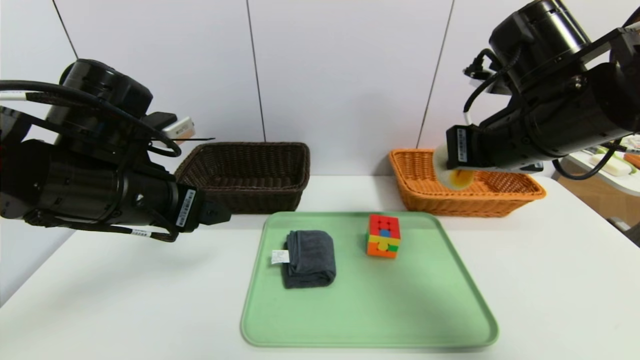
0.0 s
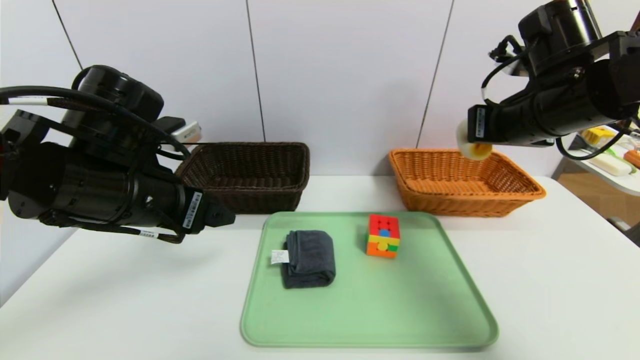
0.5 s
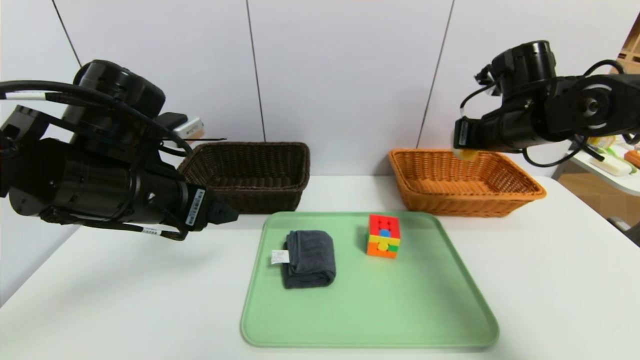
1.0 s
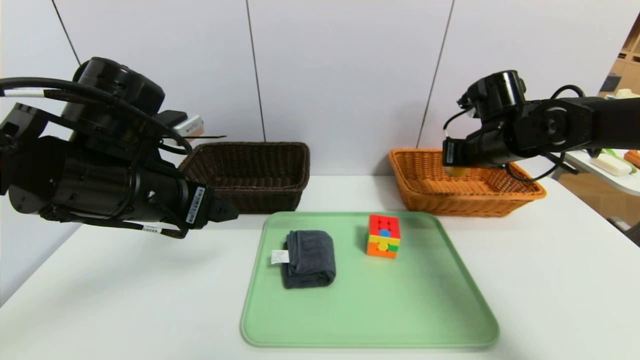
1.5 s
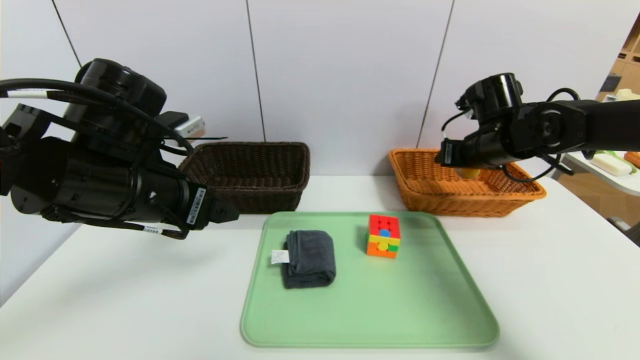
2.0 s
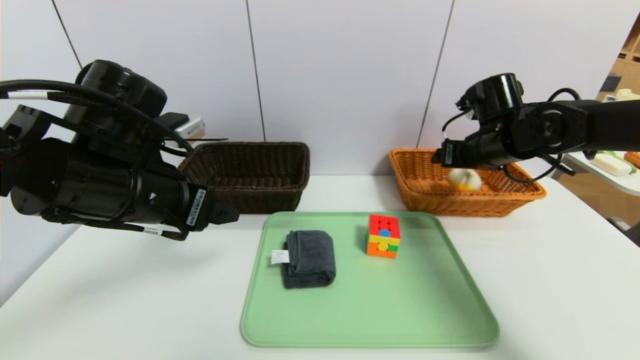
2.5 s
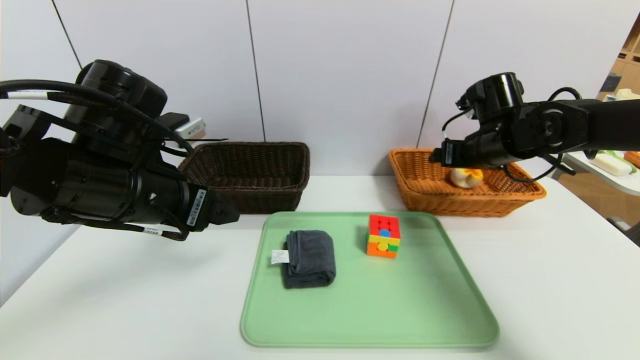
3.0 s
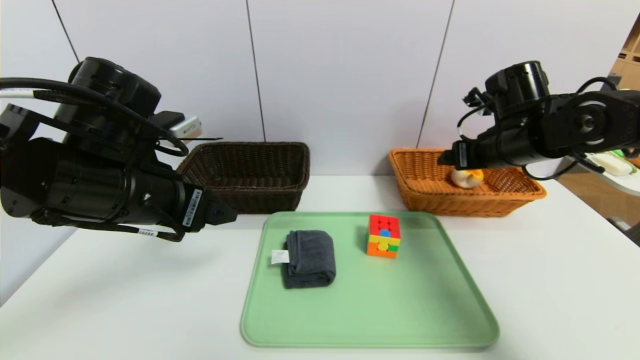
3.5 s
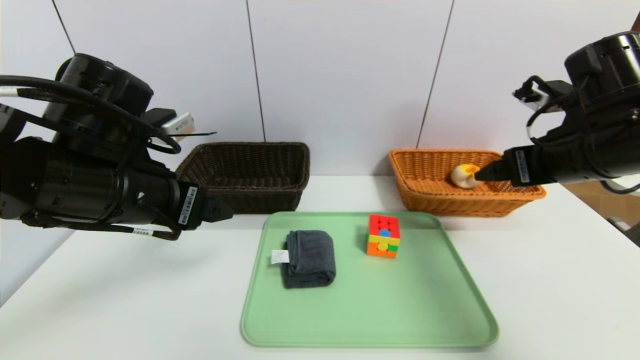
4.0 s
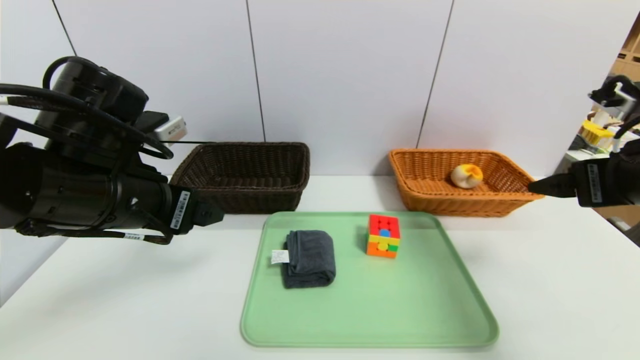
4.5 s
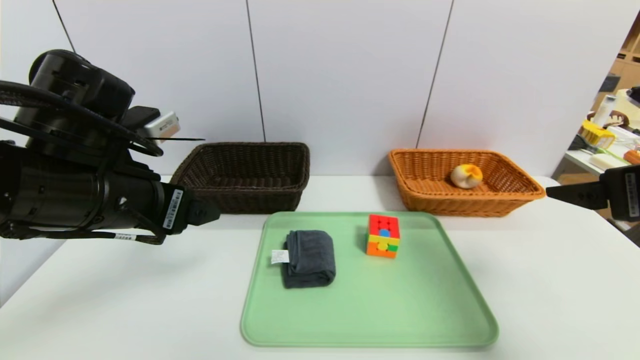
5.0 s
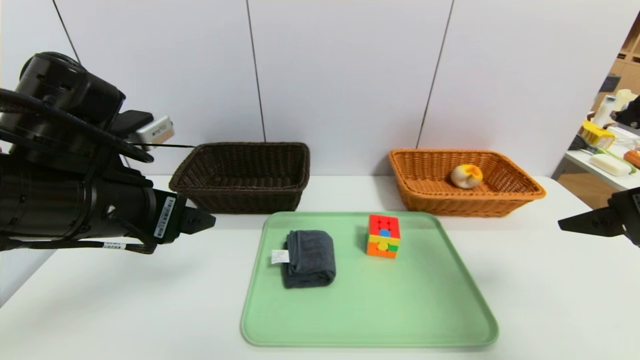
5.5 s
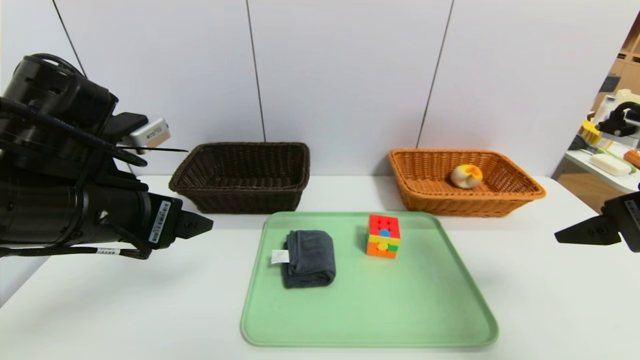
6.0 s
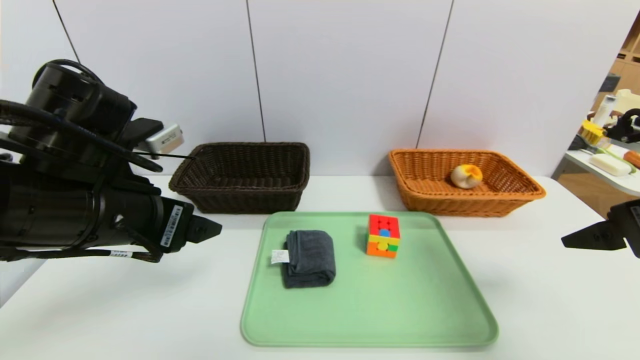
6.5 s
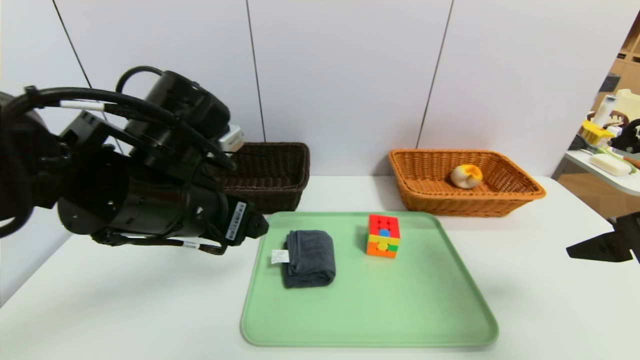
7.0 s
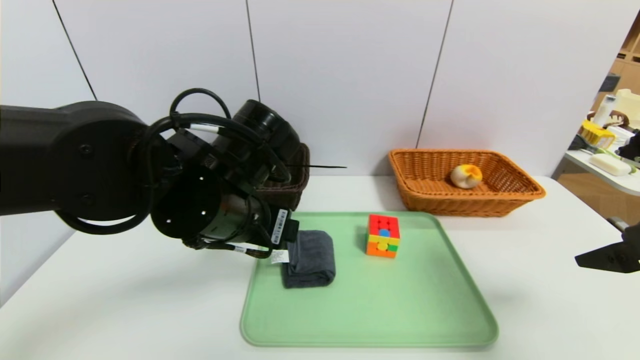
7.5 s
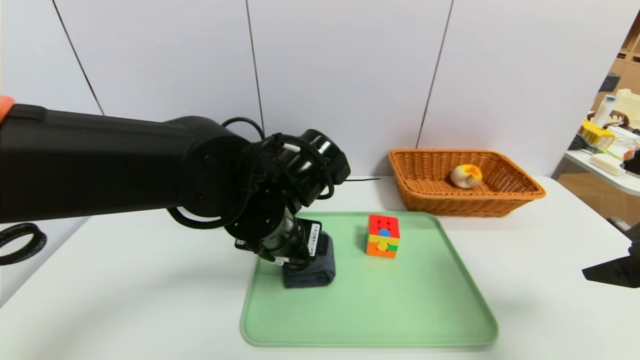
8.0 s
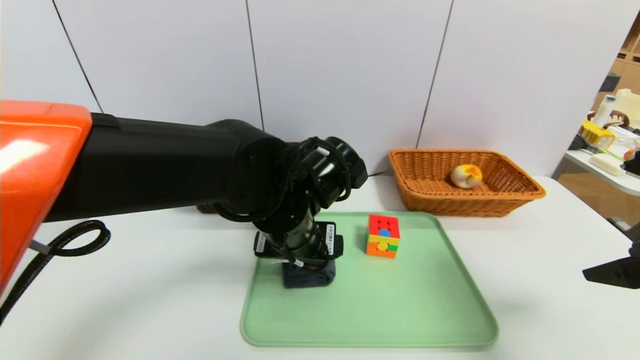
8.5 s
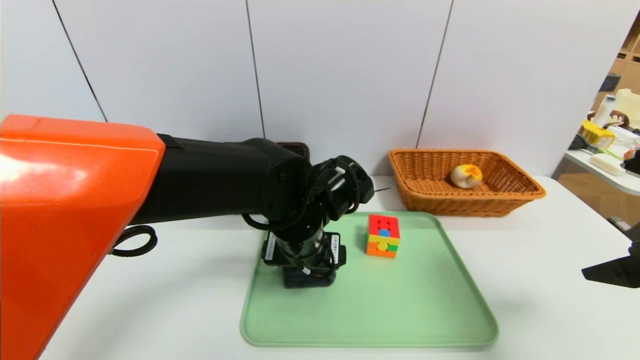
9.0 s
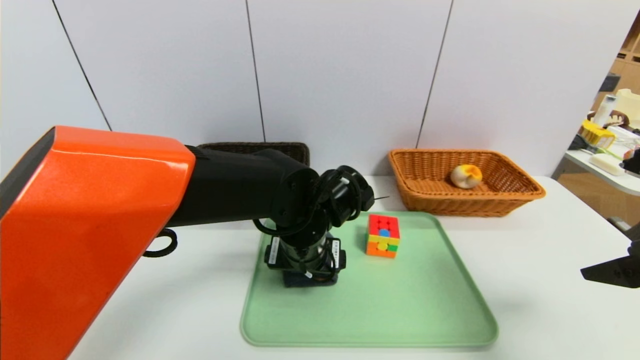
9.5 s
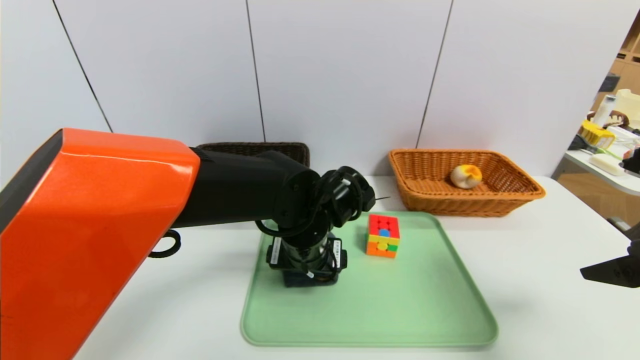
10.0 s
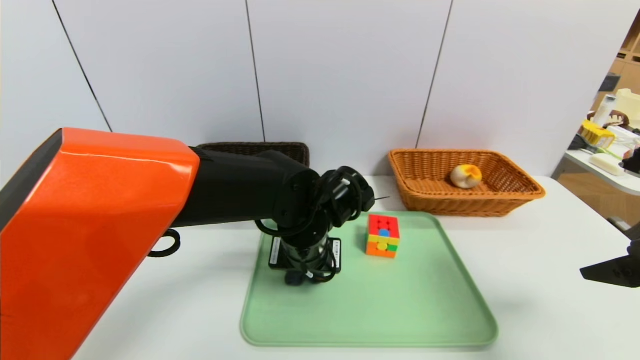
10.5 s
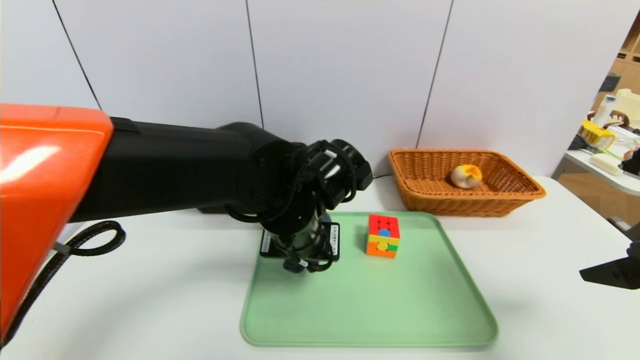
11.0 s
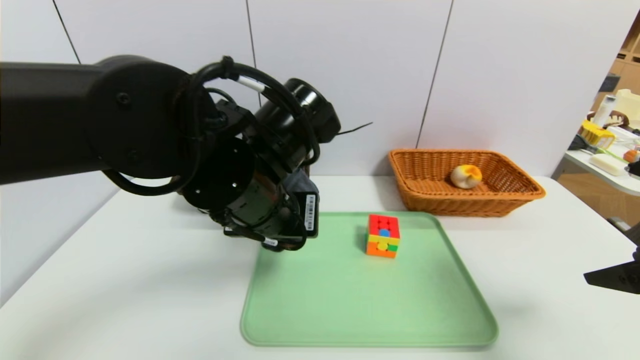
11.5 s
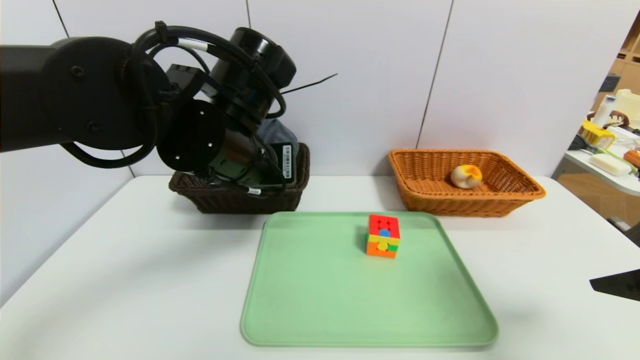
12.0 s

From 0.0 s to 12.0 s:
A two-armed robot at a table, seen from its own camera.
Task of the whole recording: place the food in the right basket with the right gripper, and place the non food items in the left basket with the left gripper.
Step, from 0.0 s to 3.0 s: Grasp the egg yolk pastry and put it in the right basket.
From 0.0 s to 2.0 s: The right gripper travels forward, downward and to the right by about 15 cm, and opens up.
From 2.0 s to 4.0 s: The right gripper moves backward and upward, about 15 cm.
From 4.0 s to 6.0 s: The right gripper moves backward, some 10 cm.
From 6.0 s to 8.0 s: The left gripper goes some 15 cm to the right.
From 8.0 s to 10.0 s: The left gripper goes approximately 5 cm downward.
From 10.0 s to 12.0 s: The left gripper heads upward and to the left, covering about 15 cm, and closes up.

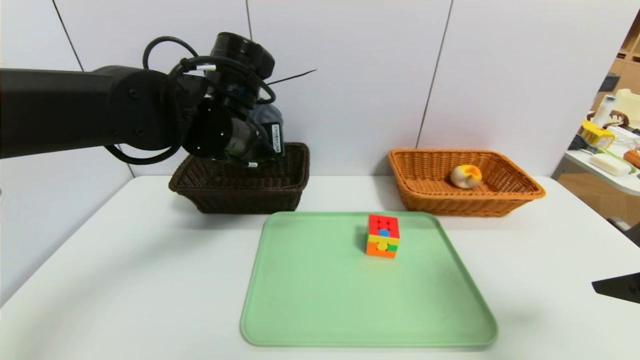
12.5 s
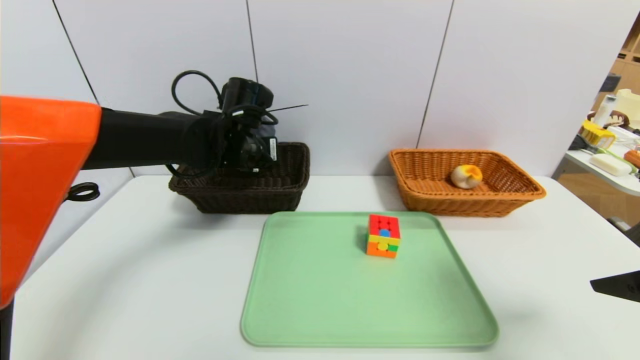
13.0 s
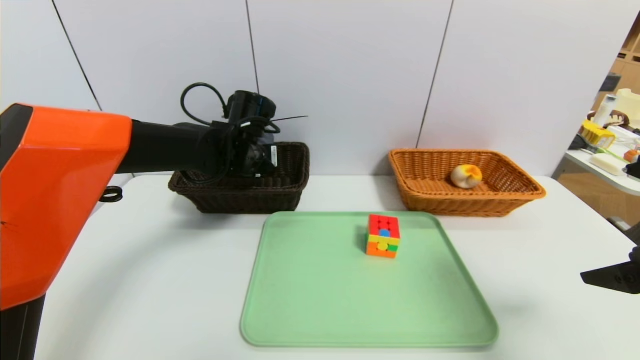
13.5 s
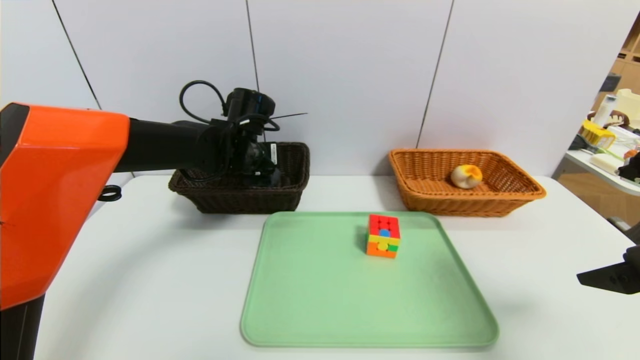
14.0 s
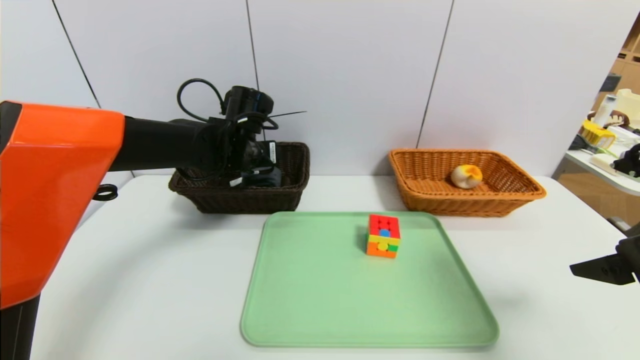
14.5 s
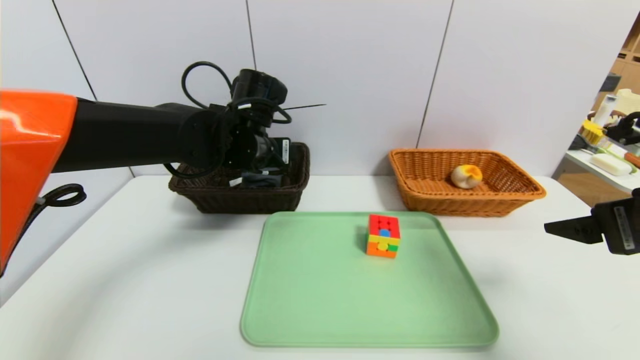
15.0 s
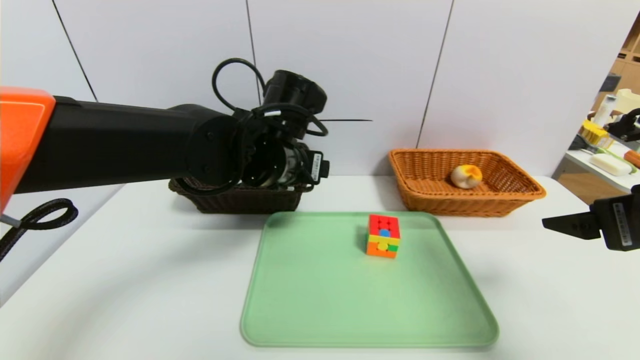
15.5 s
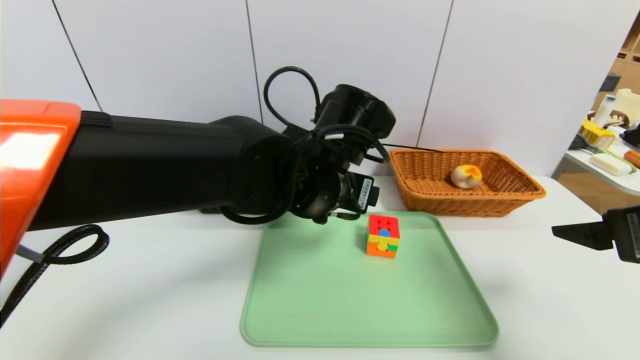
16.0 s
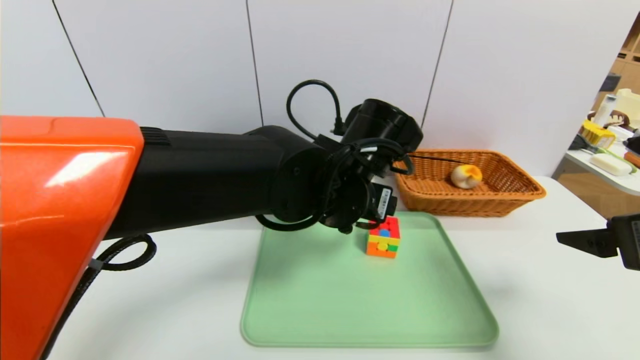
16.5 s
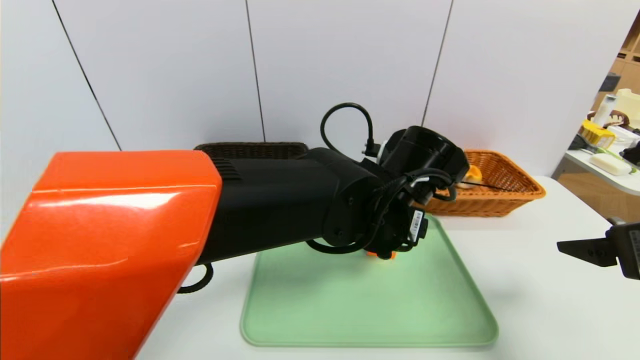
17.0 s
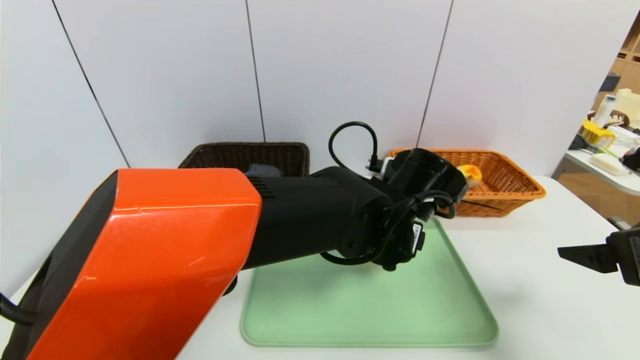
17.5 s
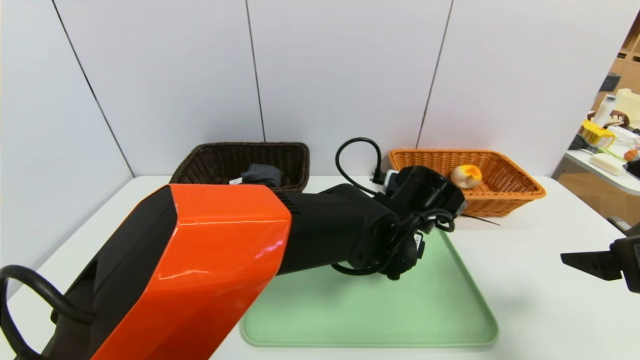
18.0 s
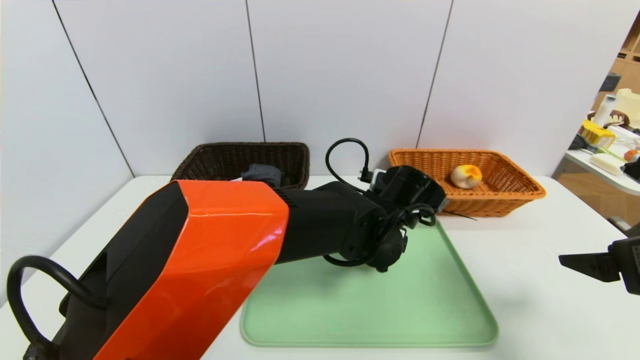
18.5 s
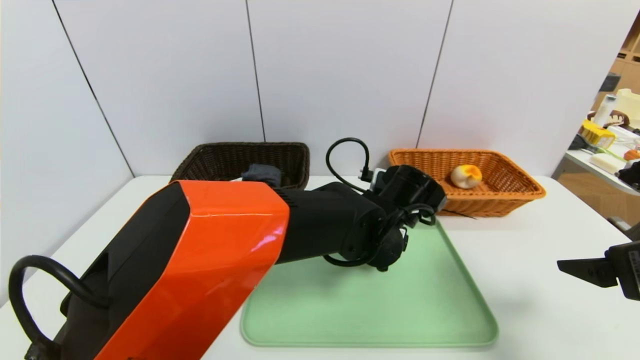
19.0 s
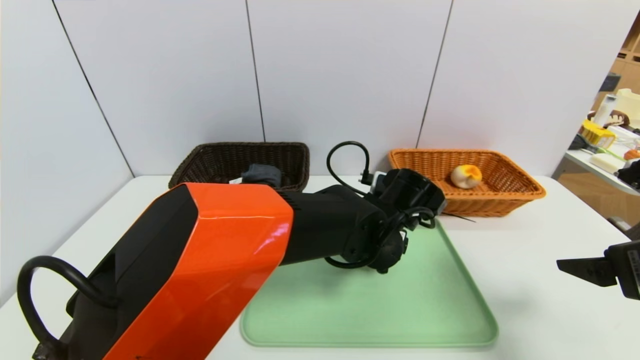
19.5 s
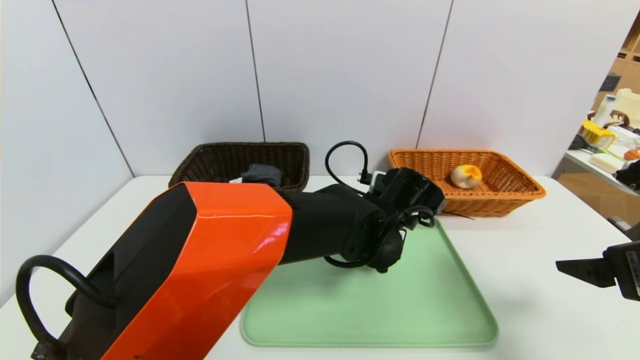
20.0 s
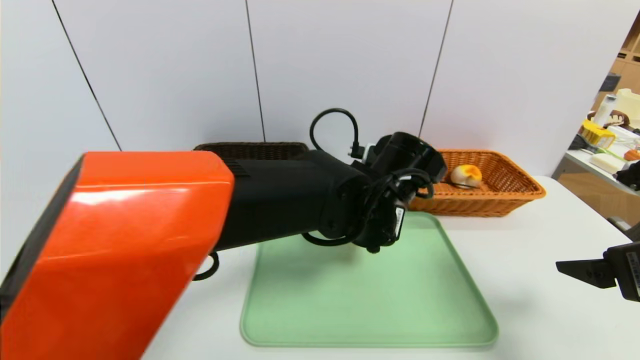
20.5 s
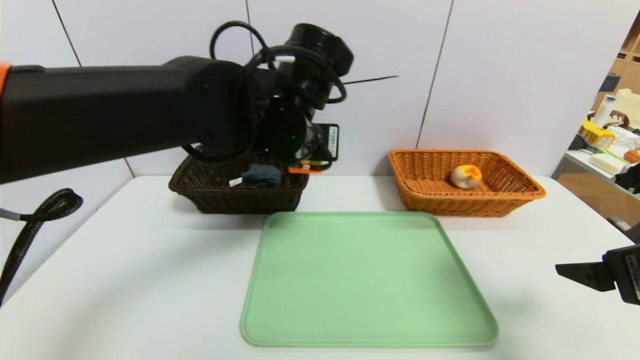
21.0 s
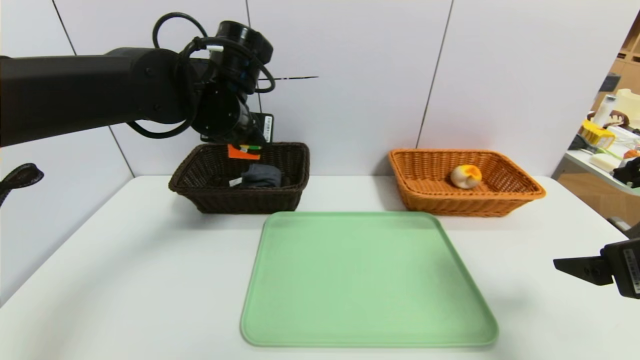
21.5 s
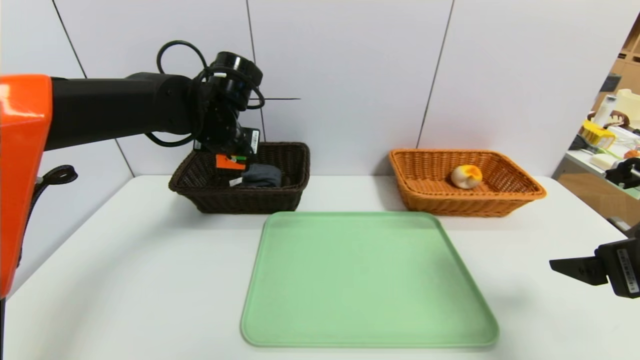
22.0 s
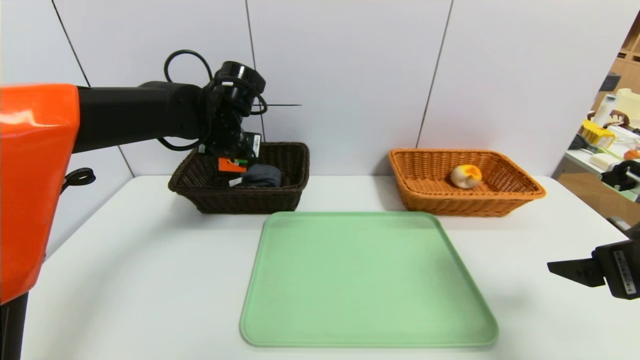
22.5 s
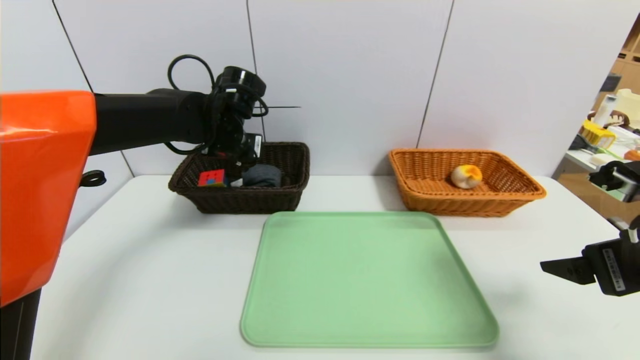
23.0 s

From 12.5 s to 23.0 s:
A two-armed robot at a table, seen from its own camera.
Task of the whole recording: place the food in the right basket with the right gripper, and place the non food items in the left basket with the left gripper.
Step, from 12.5 s to 14.5 s: Grasp the grey towel and put it in the left basket.
Step, from 15.0 s to 22.5 s: Grasp the rubiks cube and put it in the left basket.
From 12.5 s to 14.5 s: The left gripper shifts approximately 10 cm forward and downward, and opens up.
From 14.5 s to 16.5 s: The left gripper shifts approximately 20 cm to the right and backward.
From 16.5 s to 19.0 s: The left gripper goes about 10 cm downward.
From 19.0 s to 21.0 s: The left gripper is displaced upward and to the left by about 20 cm, and closes up.
From 21.0 s to 23.0 s: The left gripper goes about 15 cm forward, to the left and downward, and opens.
